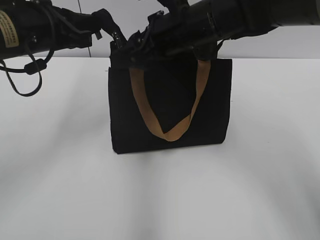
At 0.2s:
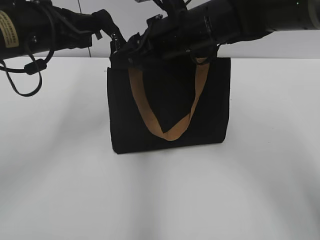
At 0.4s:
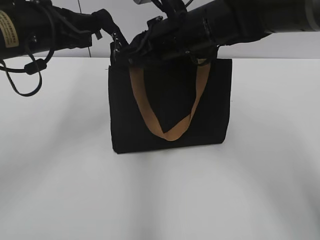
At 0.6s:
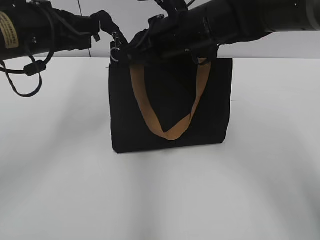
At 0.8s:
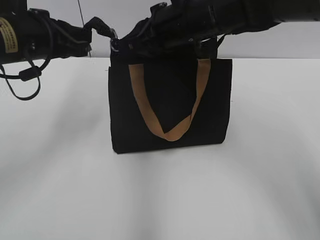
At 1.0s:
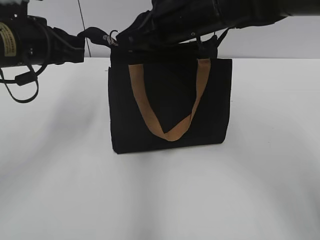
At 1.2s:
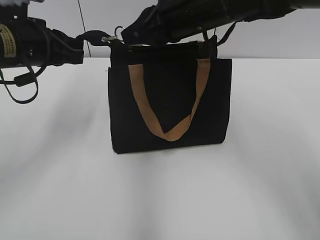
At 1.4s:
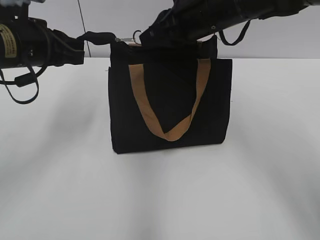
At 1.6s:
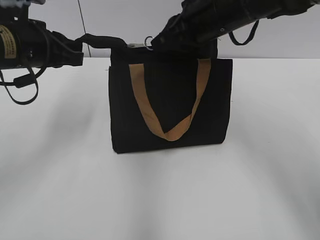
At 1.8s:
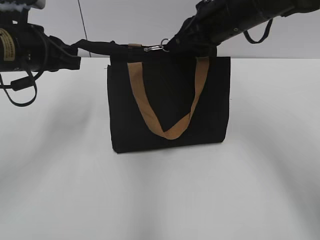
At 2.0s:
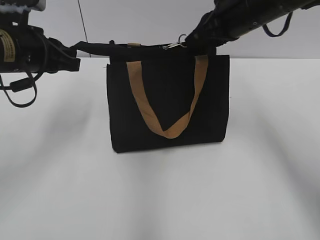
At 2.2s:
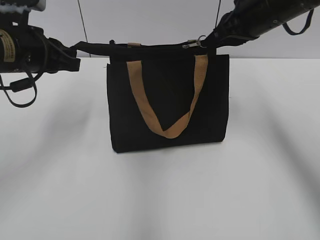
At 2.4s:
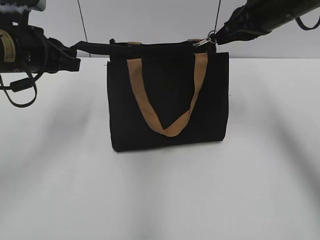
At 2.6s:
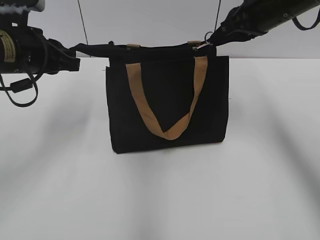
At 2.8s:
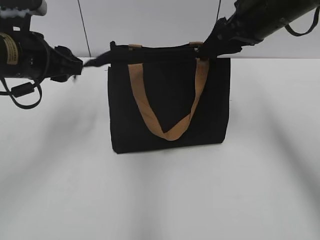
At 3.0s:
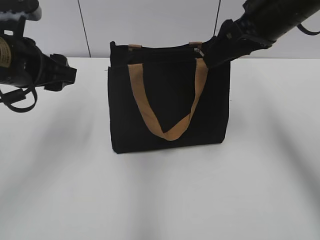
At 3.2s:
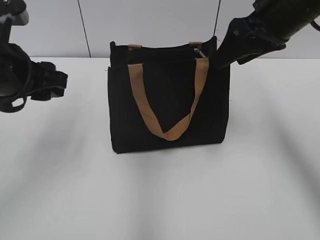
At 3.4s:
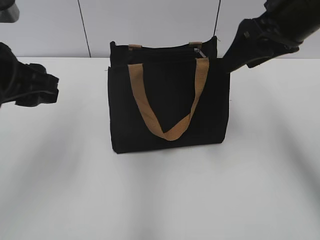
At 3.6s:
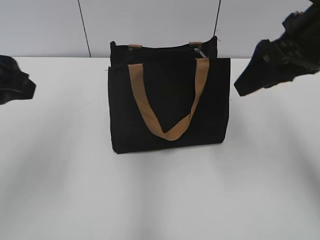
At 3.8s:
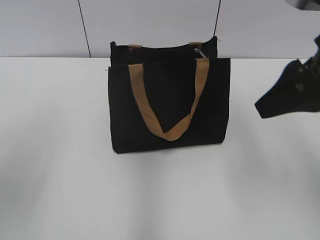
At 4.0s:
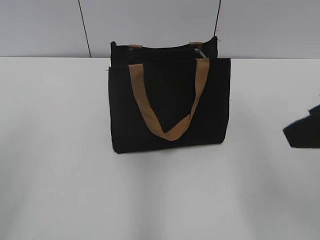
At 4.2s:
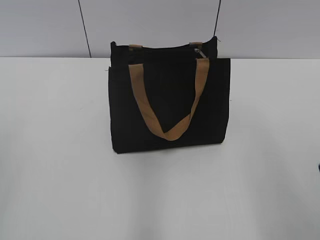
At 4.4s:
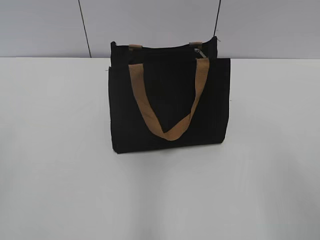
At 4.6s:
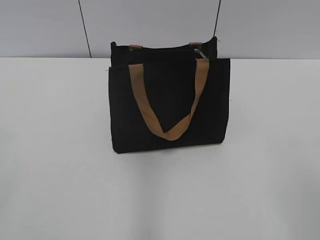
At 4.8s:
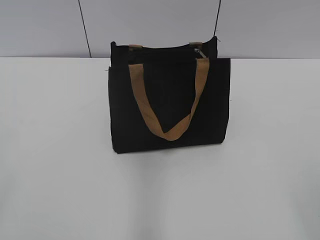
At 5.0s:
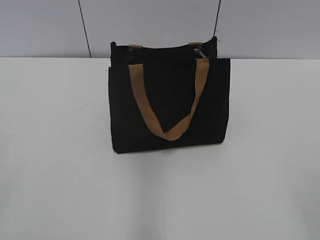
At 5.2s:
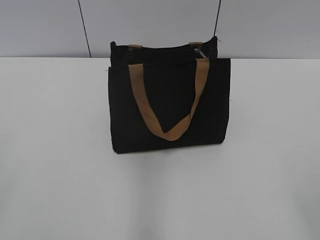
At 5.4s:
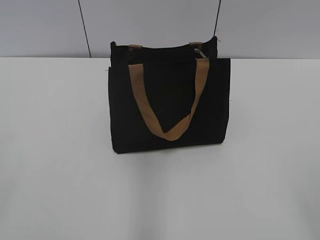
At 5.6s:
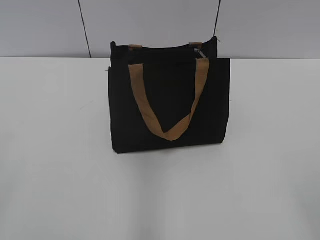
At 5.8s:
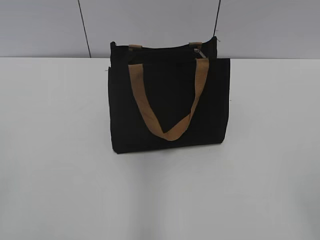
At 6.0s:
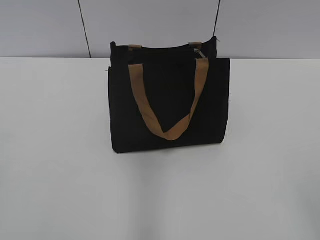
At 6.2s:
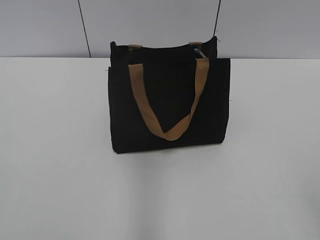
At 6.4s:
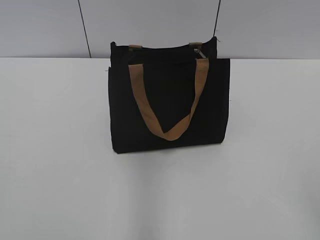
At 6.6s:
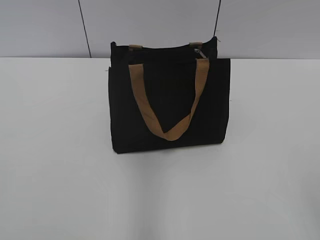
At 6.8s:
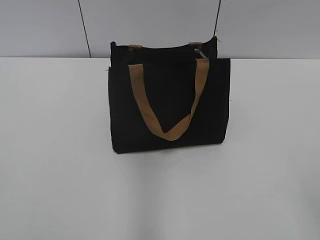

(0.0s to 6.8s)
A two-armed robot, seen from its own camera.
Step, 0.0s - 2.6s: Zip up the bag with your right hand.
Step, 2.8s - 3.2s: Grab the zipper with your left hand.
0.0s - 1.4s: The right gripper closes.
1.4s - 2.8s: The right gripper is displaced to the right by roughly 10 cm.
2.8s - 4.0s: The left gripper moves backward and upward, roughly 20 cm, and opens its fingers; the right gripper shifts roughly 15 cm backward, and opens.
4.0s - 5.4s: The right gripper is displaced backward by approximately 20 cm.

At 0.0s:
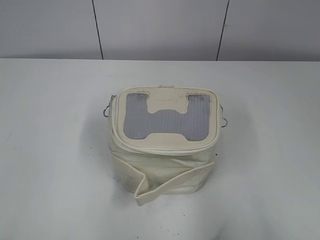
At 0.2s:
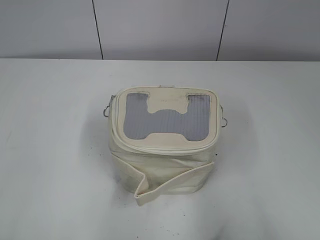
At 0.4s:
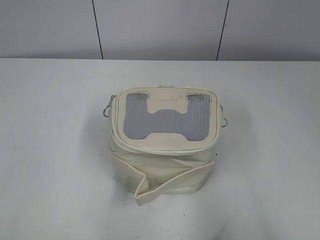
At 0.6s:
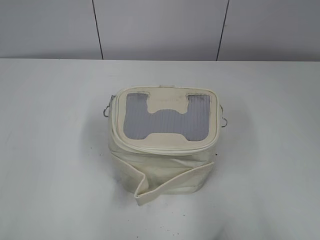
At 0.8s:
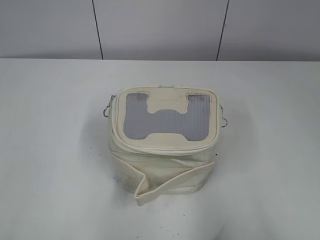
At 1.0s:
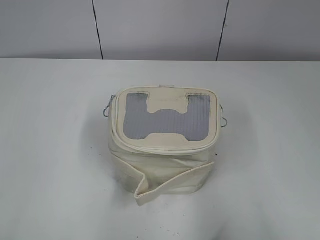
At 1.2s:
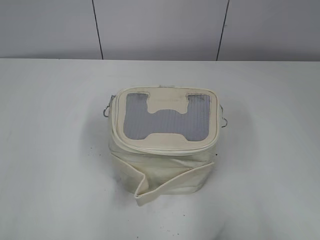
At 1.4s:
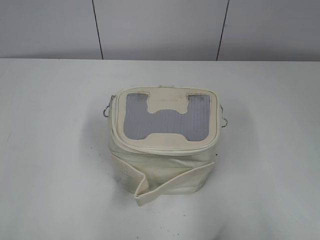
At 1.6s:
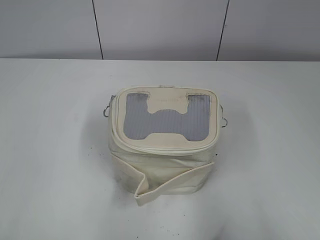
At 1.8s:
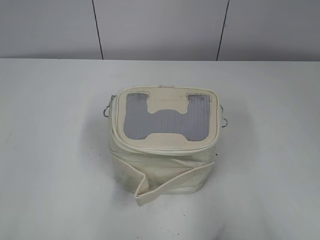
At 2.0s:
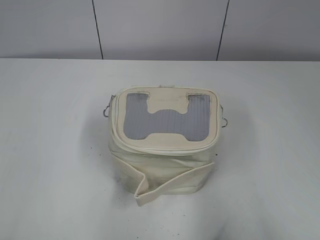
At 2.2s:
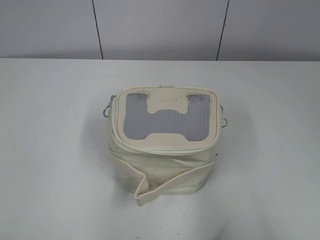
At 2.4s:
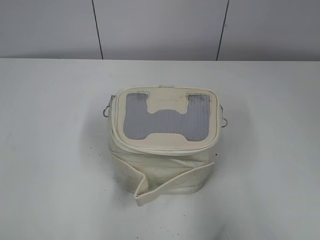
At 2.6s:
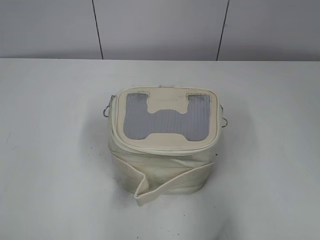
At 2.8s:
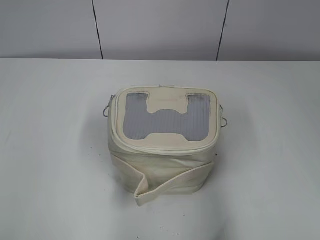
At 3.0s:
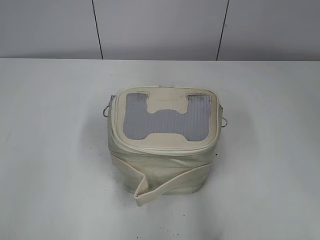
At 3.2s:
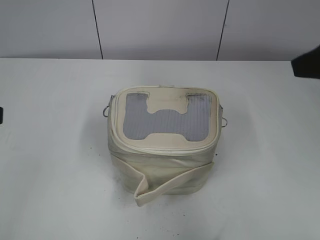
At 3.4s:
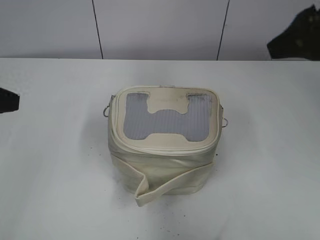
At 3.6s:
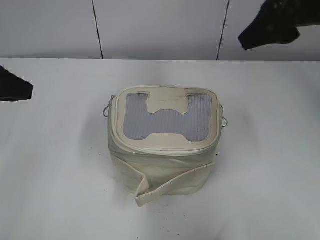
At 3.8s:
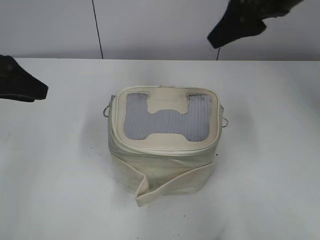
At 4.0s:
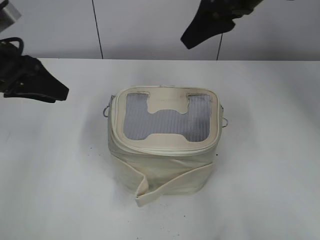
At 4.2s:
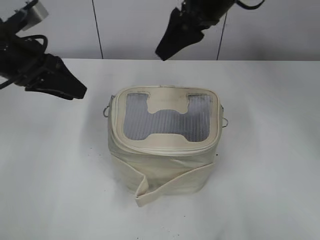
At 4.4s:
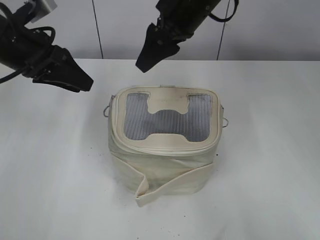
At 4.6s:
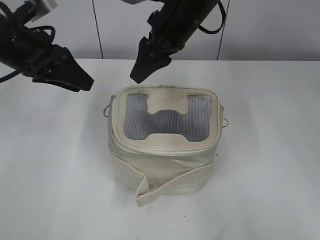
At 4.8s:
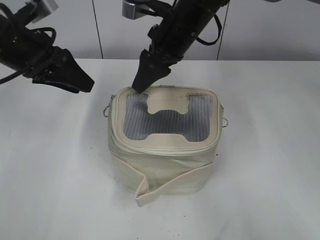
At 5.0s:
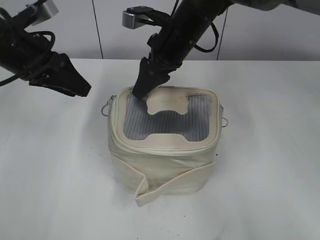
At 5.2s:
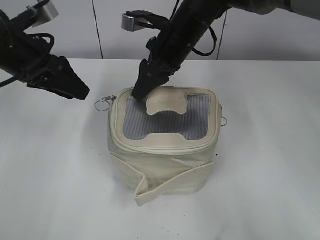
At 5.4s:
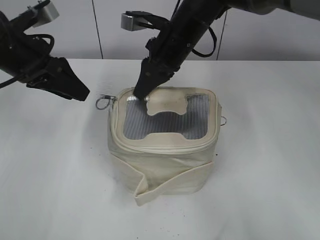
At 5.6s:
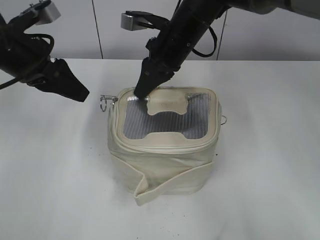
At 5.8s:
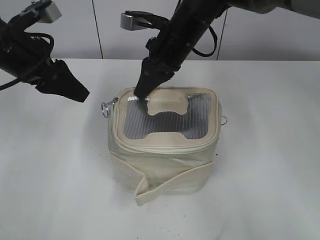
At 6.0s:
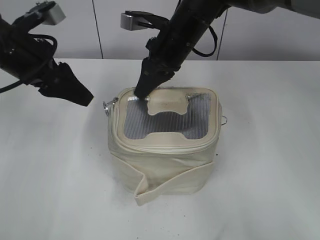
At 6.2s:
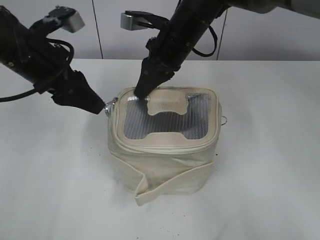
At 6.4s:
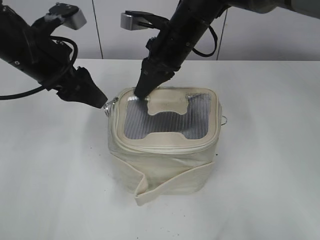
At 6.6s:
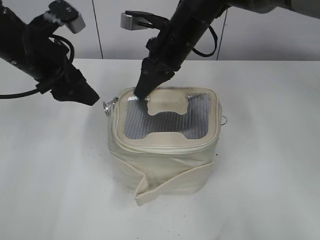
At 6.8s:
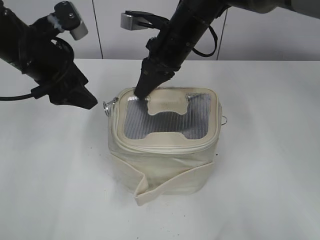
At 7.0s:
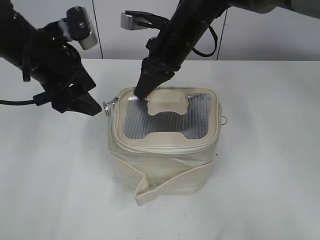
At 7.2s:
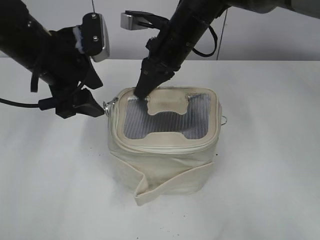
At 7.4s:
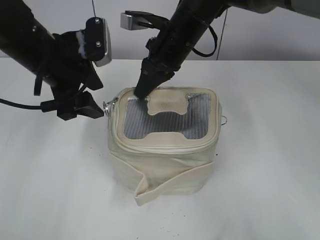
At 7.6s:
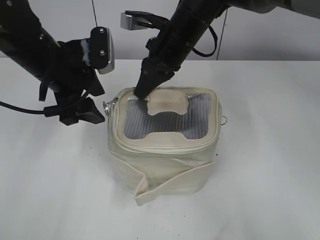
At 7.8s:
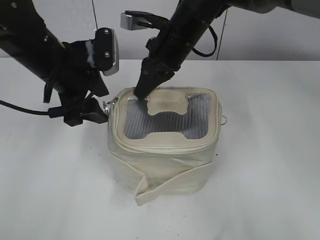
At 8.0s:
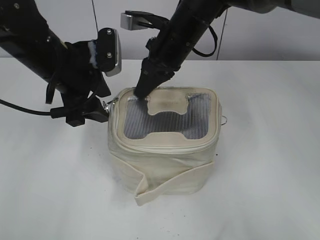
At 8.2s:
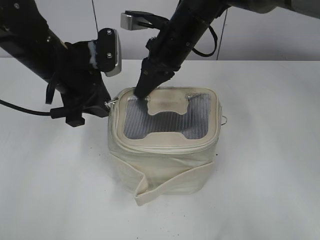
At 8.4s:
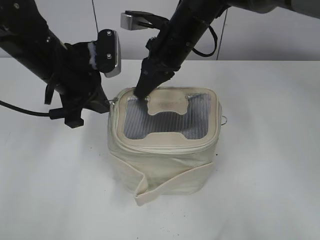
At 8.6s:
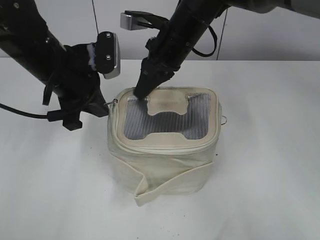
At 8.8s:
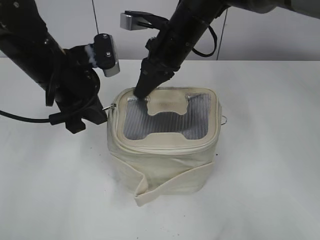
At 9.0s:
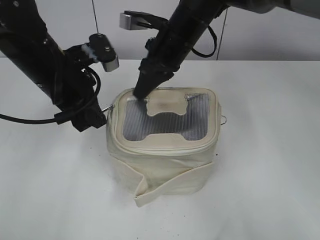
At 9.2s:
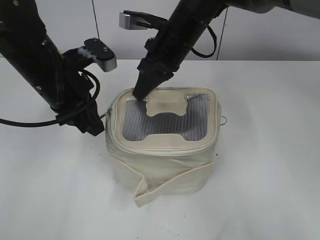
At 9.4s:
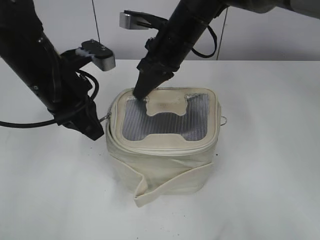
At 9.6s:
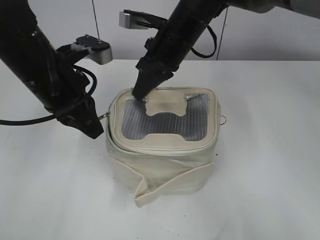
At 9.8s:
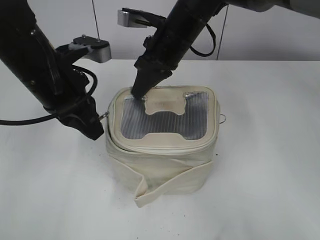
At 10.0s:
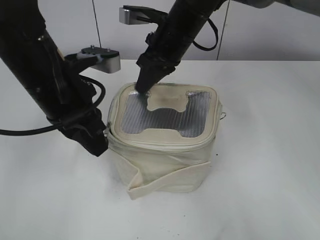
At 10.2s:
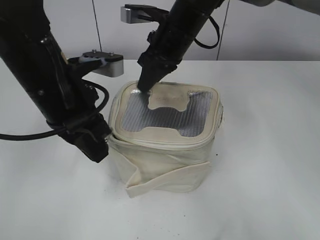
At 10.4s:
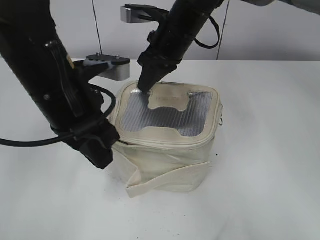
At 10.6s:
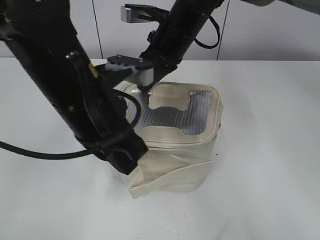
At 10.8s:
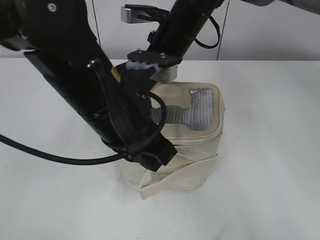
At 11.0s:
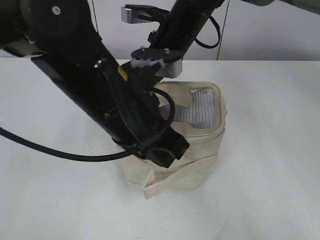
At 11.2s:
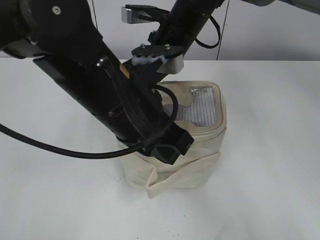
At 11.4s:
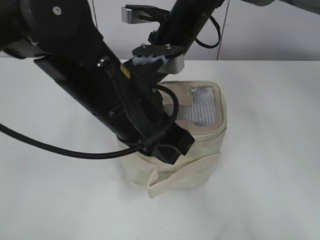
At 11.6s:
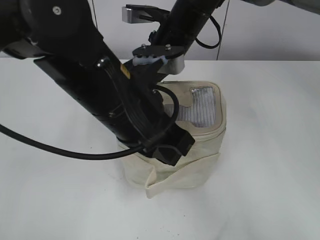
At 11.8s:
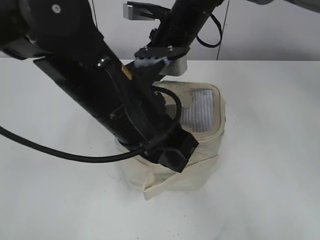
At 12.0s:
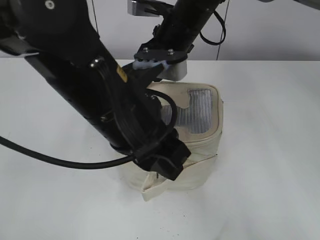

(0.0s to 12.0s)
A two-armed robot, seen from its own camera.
Step, 0.0s - 11.8s: Zip up the bag with your left hand.
1.6s - 3.0s: Both grippers travel together forward, approximately 10 cm.
3.0s - 4.4s: The right gripper heads forward and to the left, covering roughly 35 cm, while the left gripper goes approximately 20 cm forward.
4.4s - 6.0s: The right gripper heads downward, covering roughly 5 cm, and closes up; the left gripper opens.
6.0s - 7.6s: The left gripper shifts about 5 cm to the right.
7.6s - 9.0s: The left gripper closes up.
9.0s - 10.4s: The left gripper heads backward, covering some 5 cm.
10.4s - 12.0s: The left gripper shifts some 5 cm to the right, and opens its fingers. Meanwhile the right gripper opens its fingers.

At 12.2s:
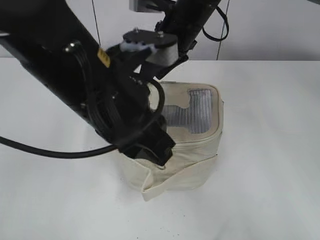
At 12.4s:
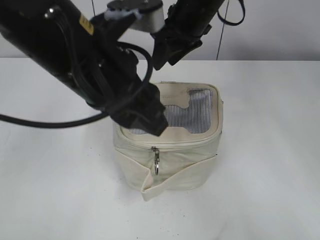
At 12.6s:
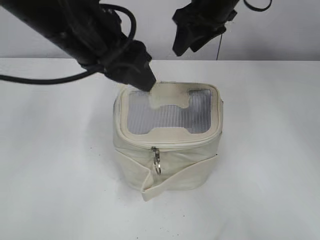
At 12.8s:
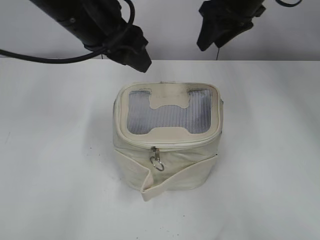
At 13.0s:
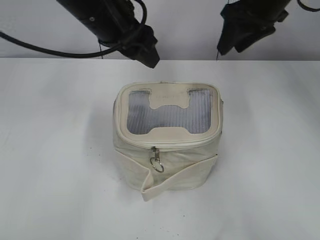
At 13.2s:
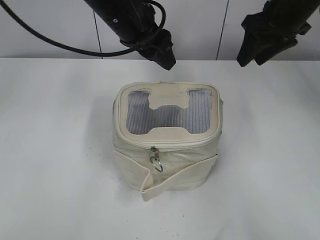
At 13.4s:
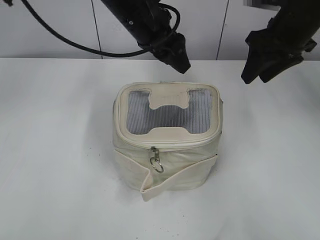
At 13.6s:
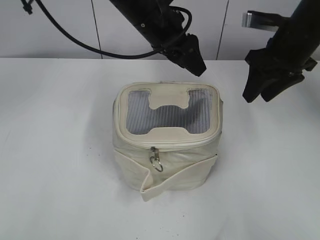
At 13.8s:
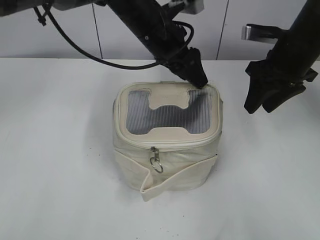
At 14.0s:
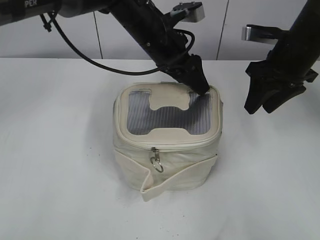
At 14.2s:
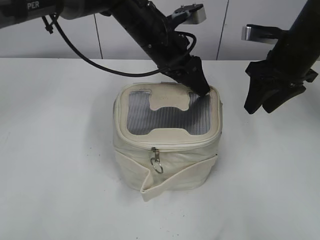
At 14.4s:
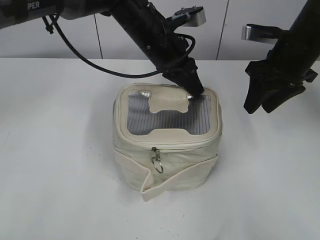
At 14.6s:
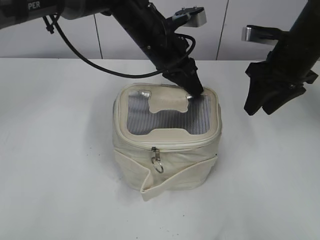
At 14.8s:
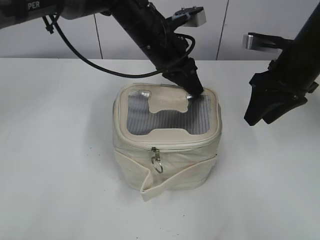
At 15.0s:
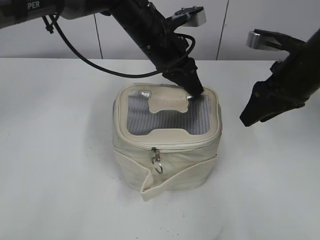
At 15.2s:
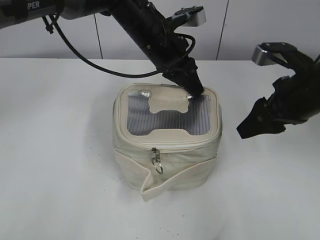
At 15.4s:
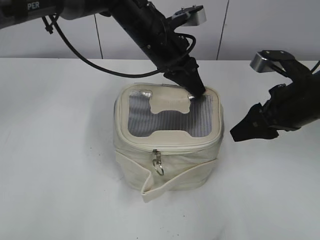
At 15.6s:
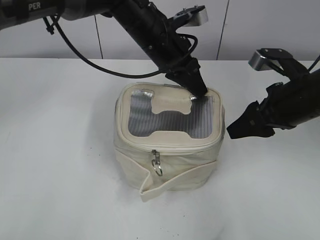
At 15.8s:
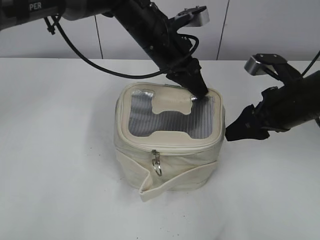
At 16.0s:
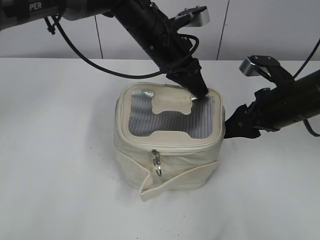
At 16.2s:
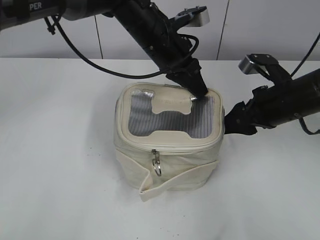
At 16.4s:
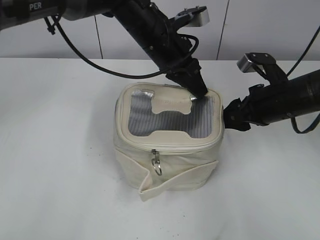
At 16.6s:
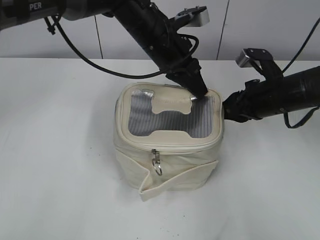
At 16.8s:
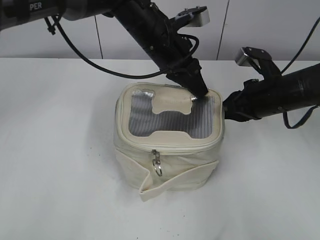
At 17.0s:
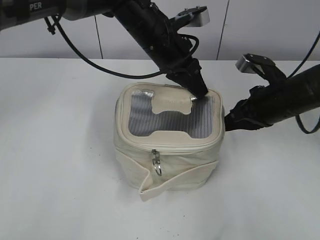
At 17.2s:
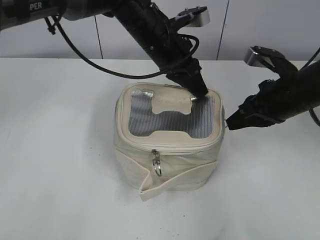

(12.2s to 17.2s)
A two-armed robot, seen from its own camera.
12.2s - 13.8s: The left gripper goes roughly 20 cm forward, and opens up, while the right gripper goes about 20 cm to the right.
13.8s - 15.6s: The right gripper is displaced backward by roughly 10 cm, while the left gripper closes up.
15.6s - 17.2s: The right gripper closes its fingers.
